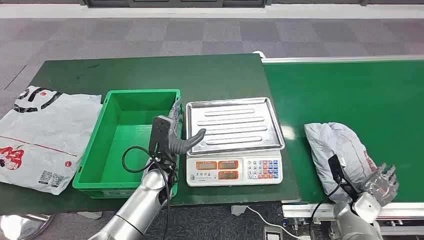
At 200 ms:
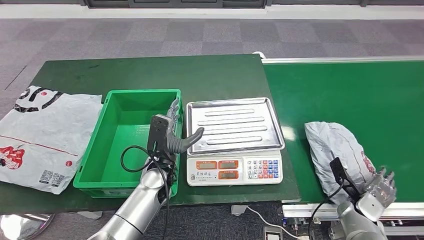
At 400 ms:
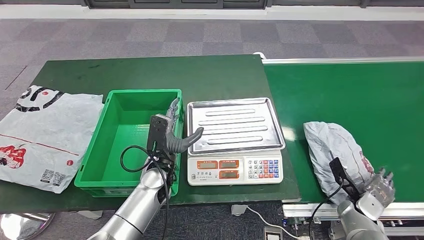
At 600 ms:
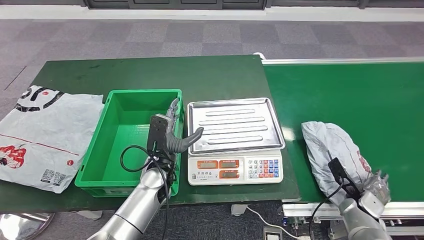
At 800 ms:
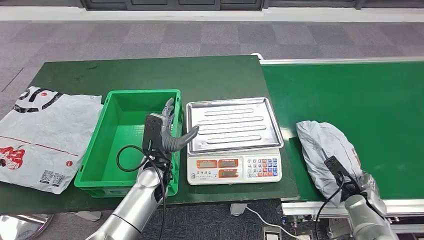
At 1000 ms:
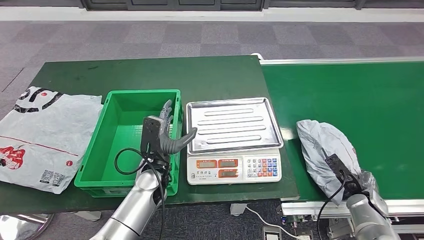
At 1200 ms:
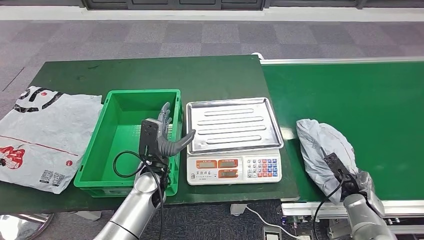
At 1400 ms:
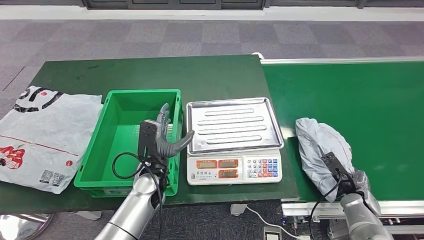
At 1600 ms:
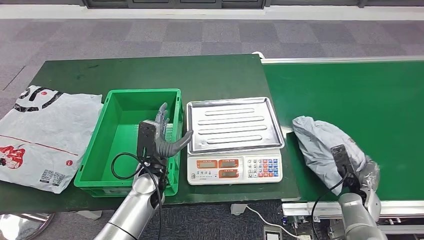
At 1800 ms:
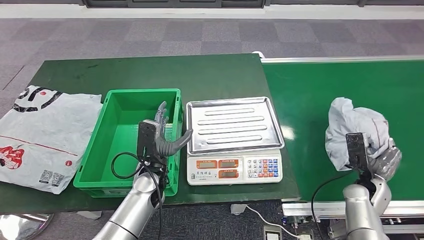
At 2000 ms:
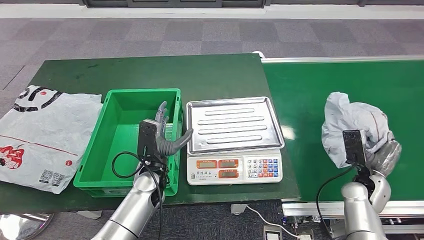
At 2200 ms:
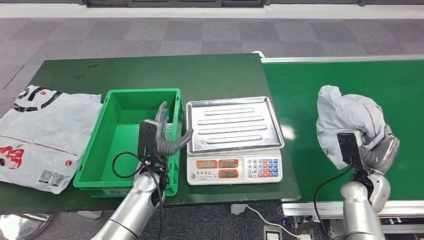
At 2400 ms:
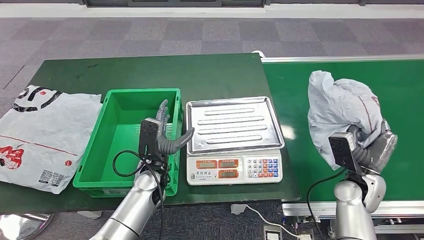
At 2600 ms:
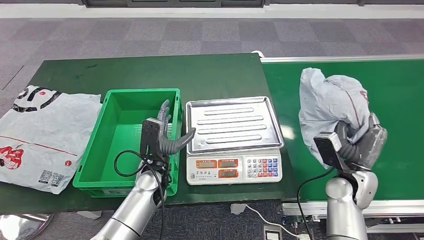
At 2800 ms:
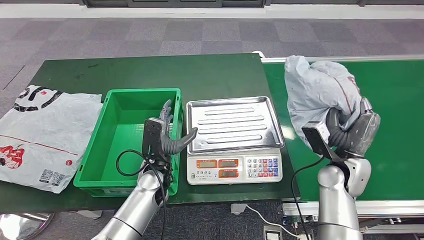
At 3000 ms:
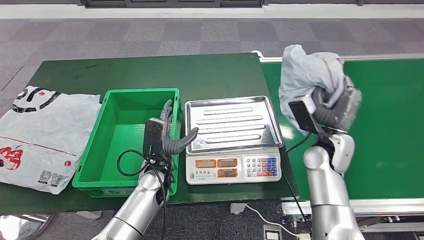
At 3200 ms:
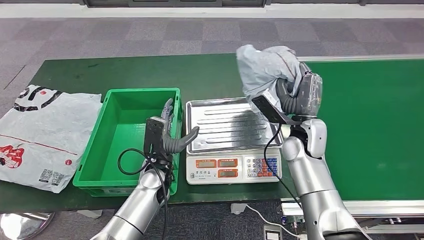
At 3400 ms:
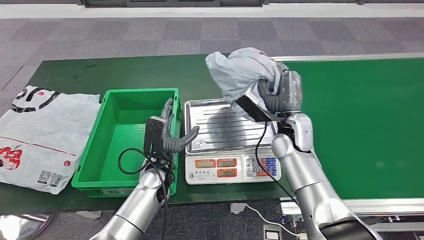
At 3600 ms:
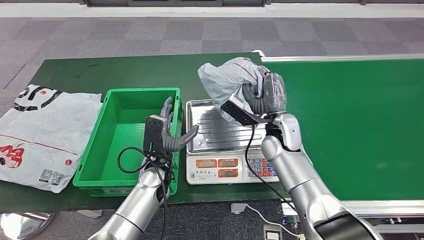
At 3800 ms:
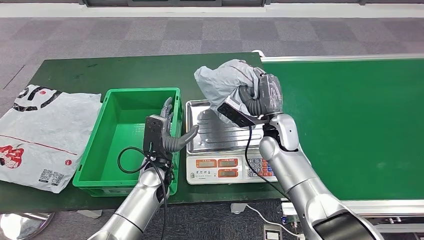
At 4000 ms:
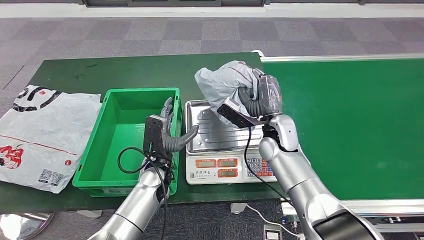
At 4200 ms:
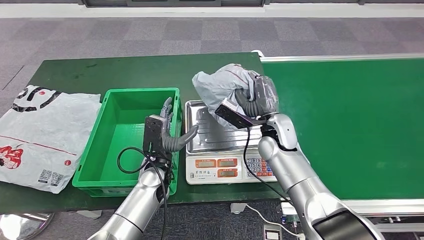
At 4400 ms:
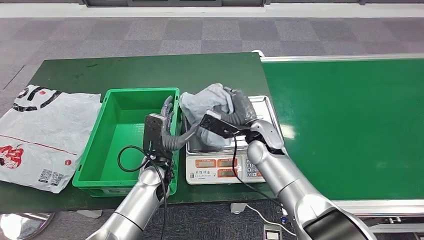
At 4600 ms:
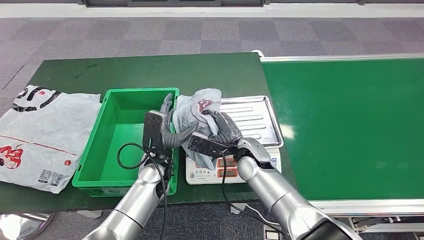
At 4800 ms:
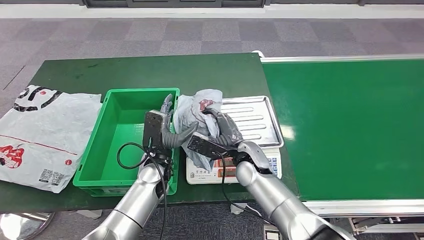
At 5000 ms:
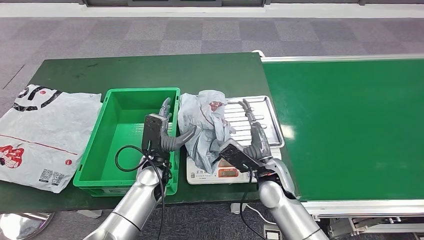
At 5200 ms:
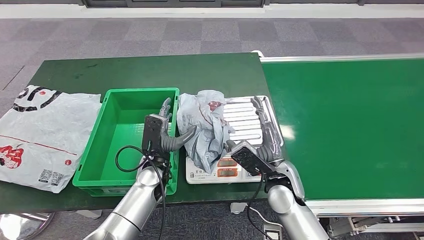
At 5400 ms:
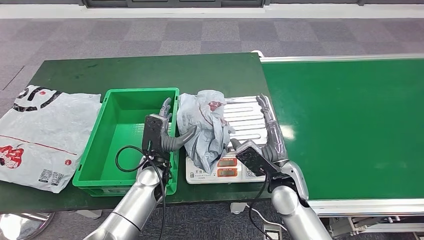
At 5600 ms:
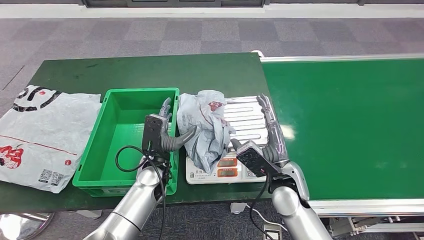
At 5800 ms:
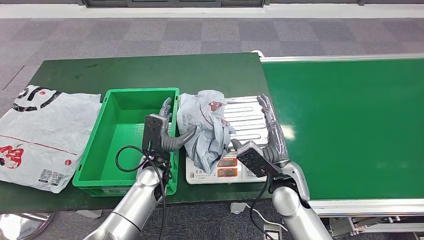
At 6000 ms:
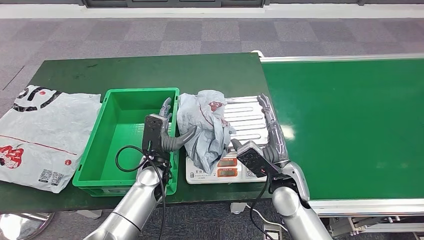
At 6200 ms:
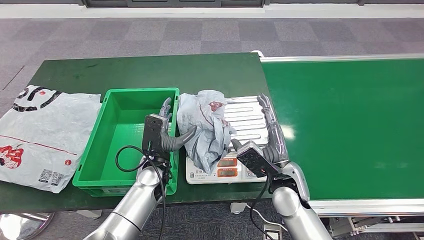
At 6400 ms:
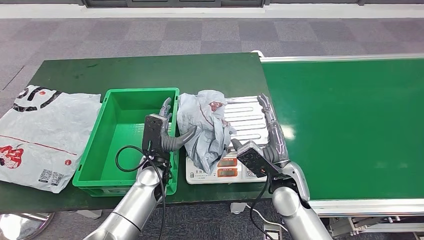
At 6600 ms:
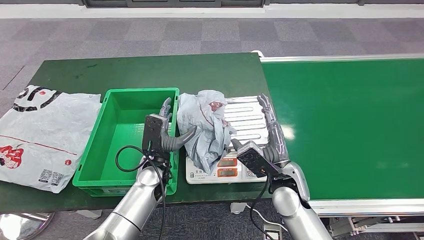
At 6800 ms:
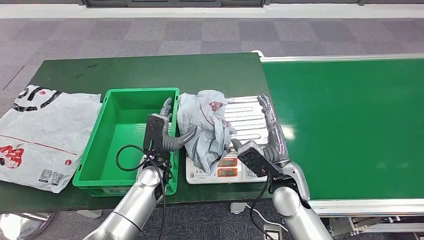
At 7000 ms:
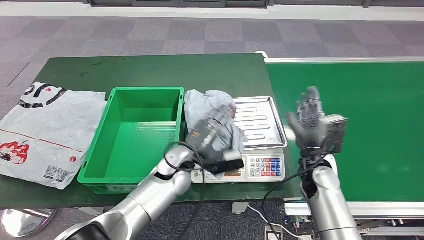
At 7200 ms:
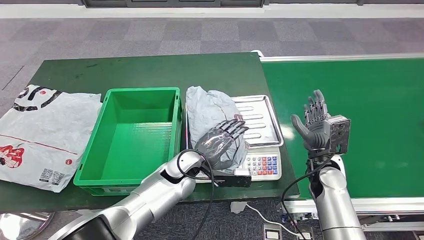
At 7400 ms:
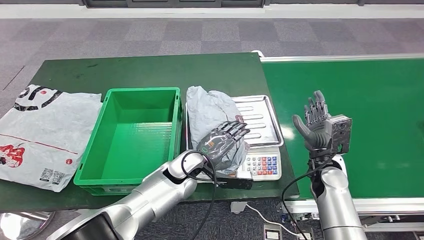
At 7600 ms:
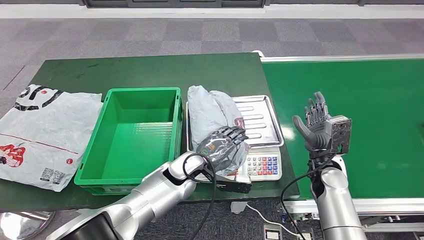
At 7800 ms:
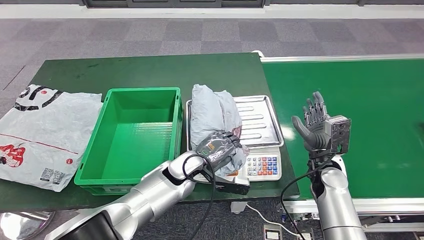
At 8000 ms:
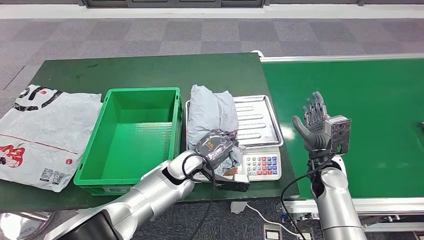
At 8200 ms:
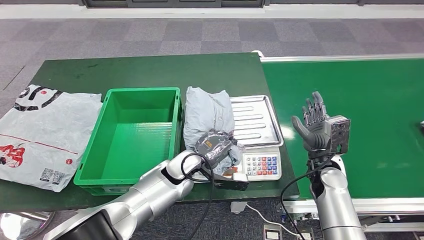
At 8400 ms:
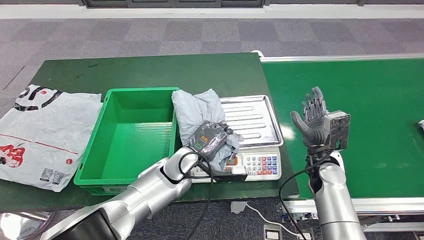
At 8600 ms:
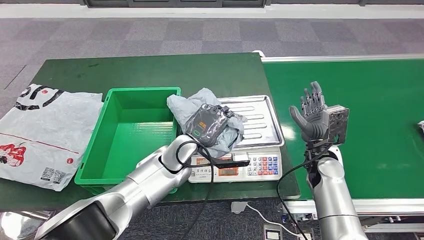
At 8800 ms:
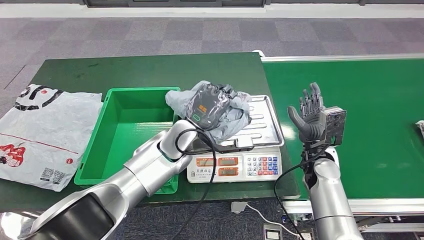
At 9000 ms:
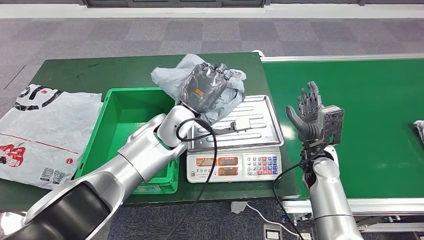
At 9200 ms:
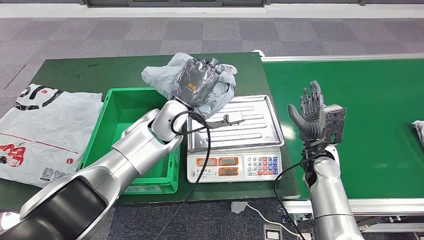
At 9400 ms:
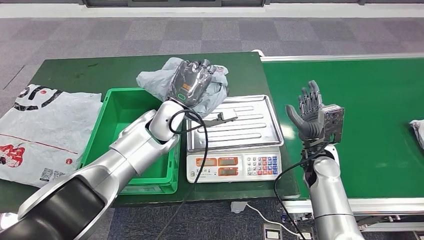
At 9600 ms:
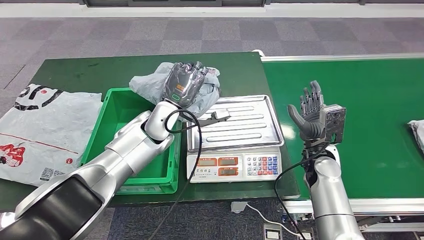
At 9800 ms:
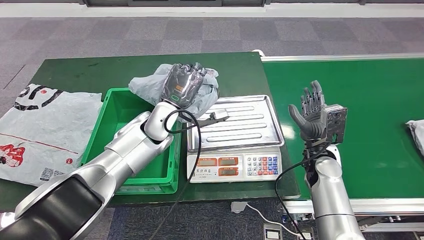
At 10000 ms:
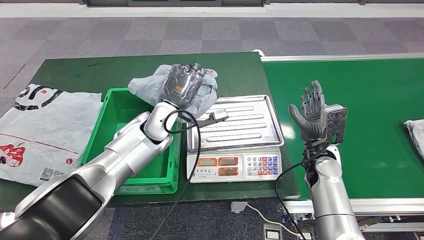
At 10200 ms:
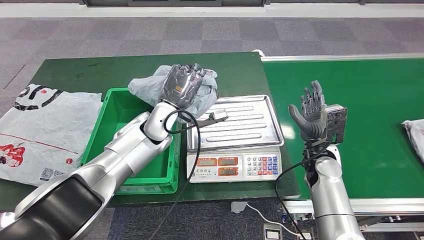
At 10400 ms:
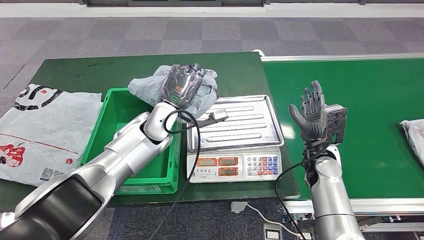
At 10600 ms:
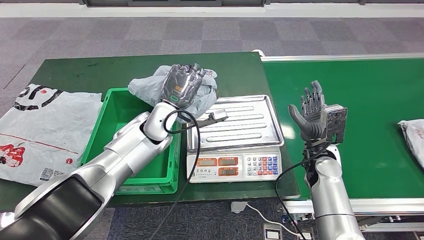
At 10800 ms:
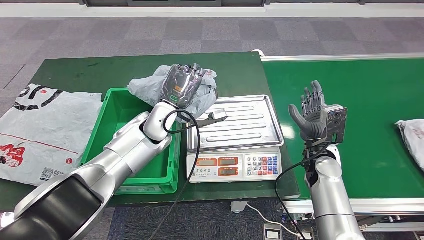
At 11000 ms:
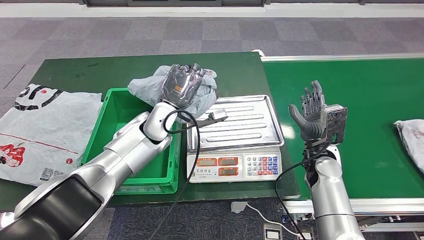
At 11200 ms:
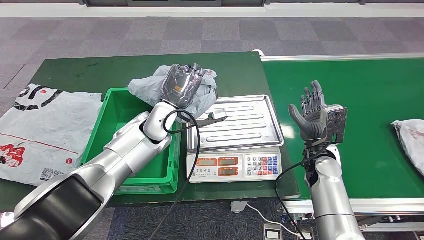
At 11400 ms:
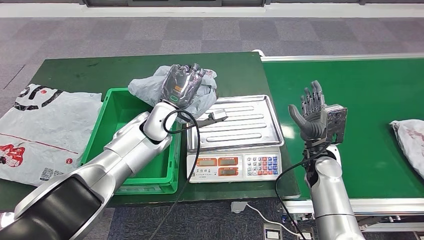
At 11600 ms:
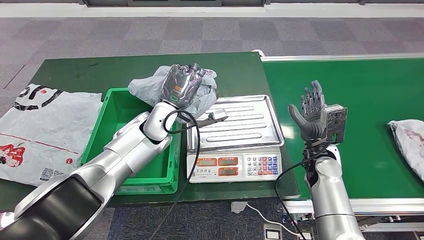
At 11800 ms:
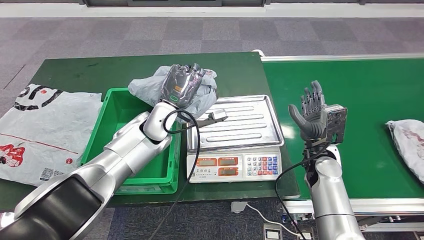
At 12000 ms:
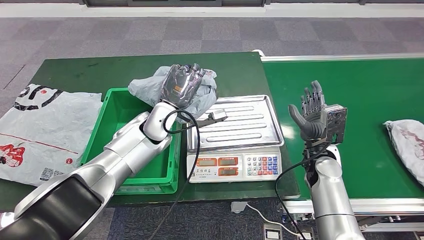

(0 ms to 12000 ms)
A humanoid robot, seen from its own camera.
Step, 0 ms - 1600 ms: Take the parcel off the conveyor belt.
Step, 1800 ms - 5400 ms: Place the parcel onto the inbound machine.
Step, 5600 ms - 9800 ms: Pick up the parcel from the inbound machine.
4400 ms - 6000 ms: The right hand is displaced backward by roughly 10 cm.
9000 ms - 10400 ms: The left hand moves roughly 5 cm.
10400 ms - 12000 ms: Neither hand changes place.

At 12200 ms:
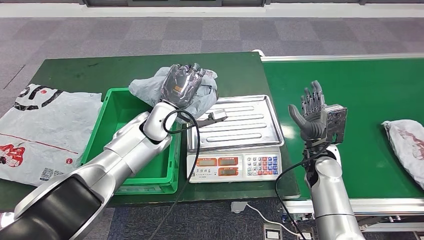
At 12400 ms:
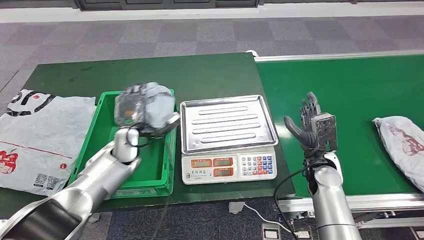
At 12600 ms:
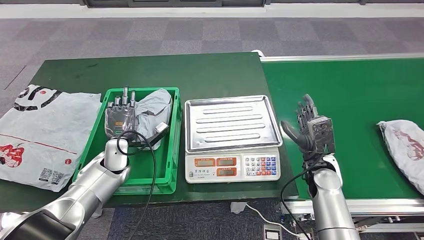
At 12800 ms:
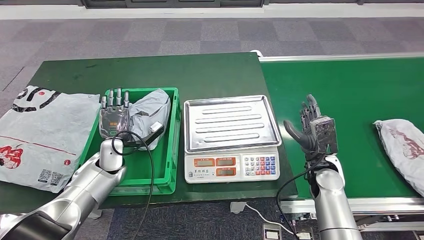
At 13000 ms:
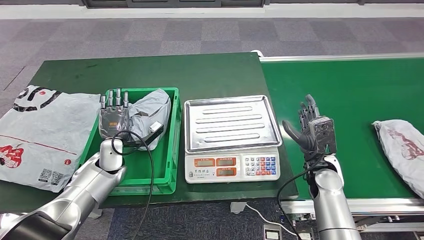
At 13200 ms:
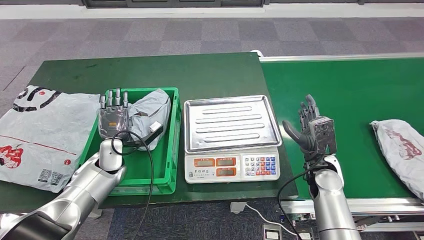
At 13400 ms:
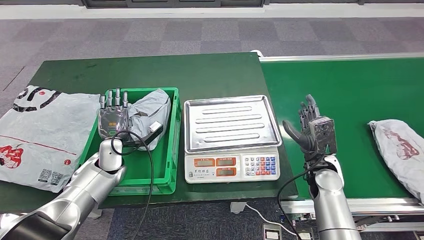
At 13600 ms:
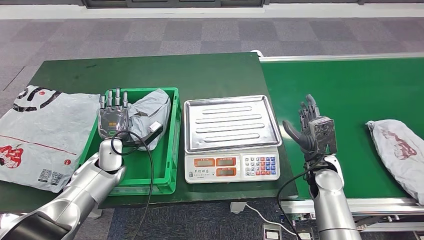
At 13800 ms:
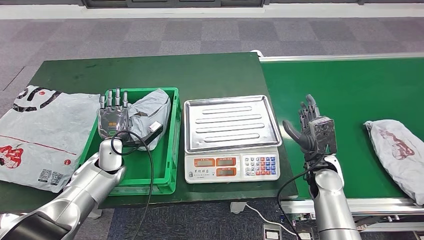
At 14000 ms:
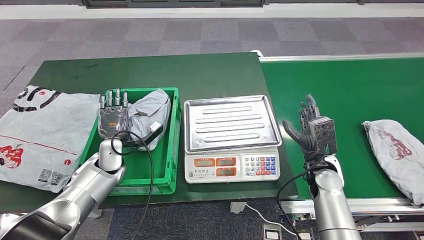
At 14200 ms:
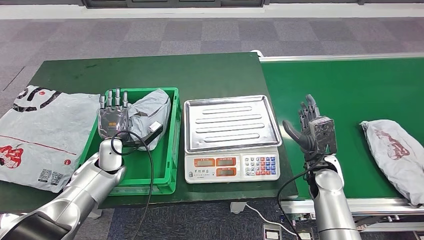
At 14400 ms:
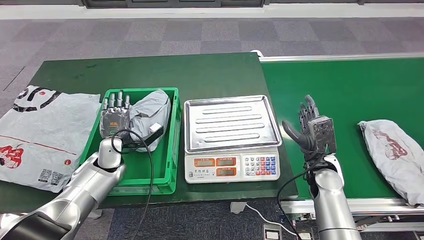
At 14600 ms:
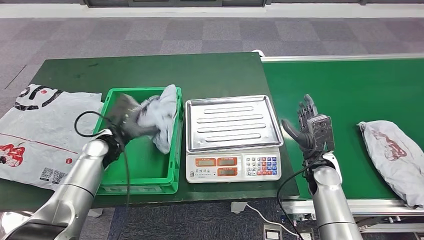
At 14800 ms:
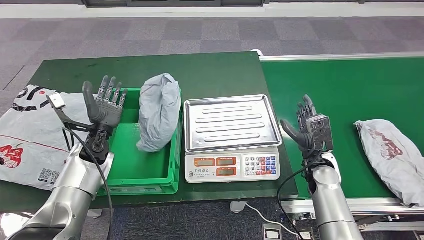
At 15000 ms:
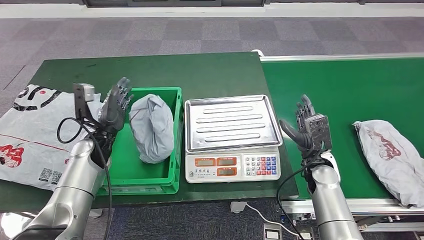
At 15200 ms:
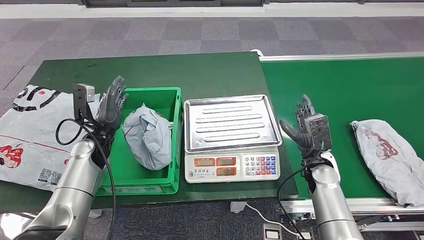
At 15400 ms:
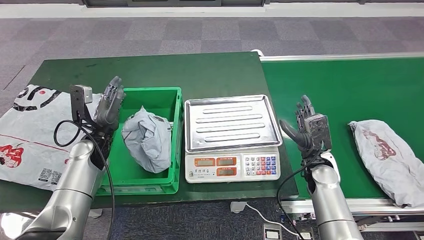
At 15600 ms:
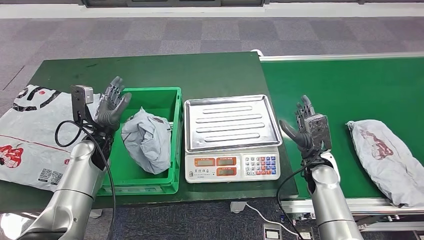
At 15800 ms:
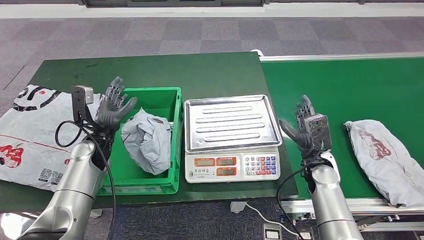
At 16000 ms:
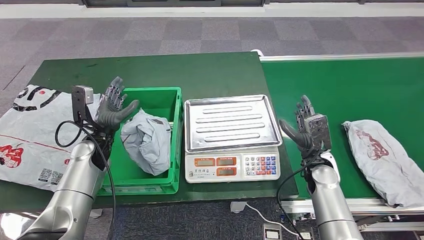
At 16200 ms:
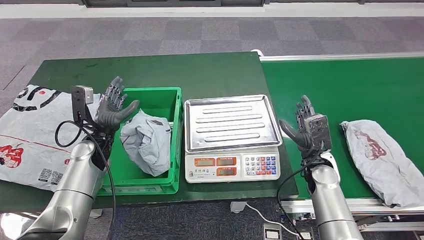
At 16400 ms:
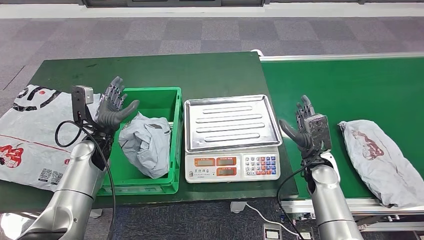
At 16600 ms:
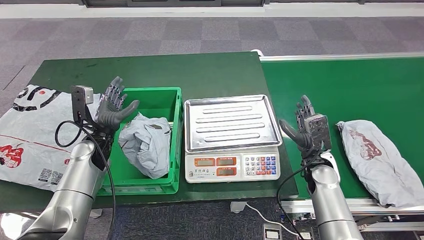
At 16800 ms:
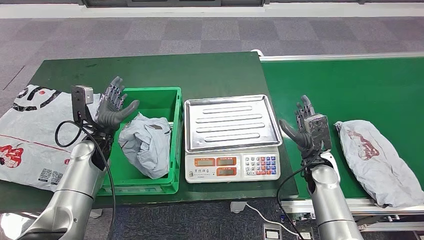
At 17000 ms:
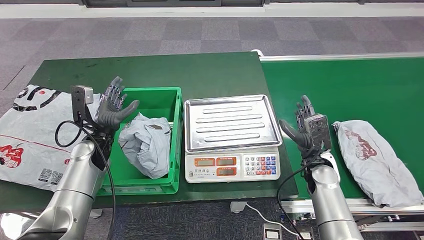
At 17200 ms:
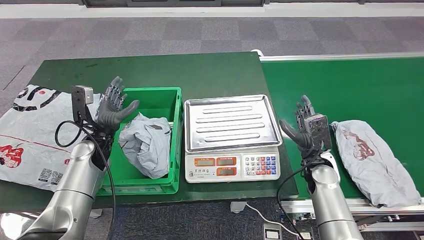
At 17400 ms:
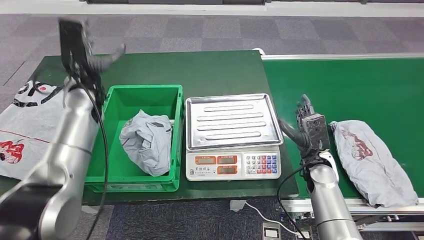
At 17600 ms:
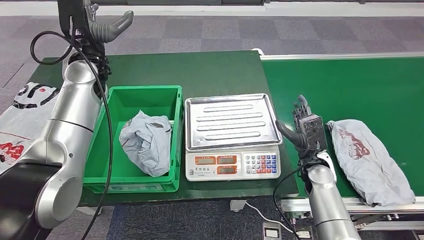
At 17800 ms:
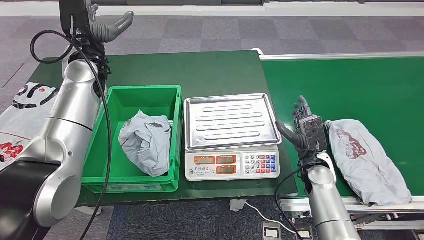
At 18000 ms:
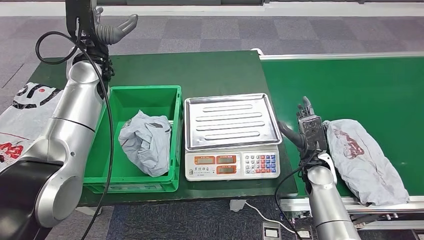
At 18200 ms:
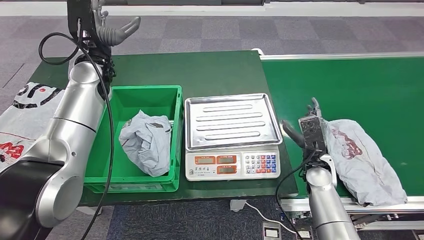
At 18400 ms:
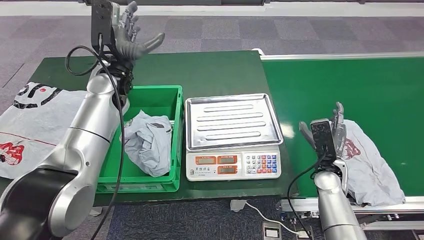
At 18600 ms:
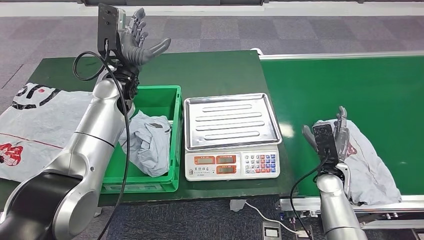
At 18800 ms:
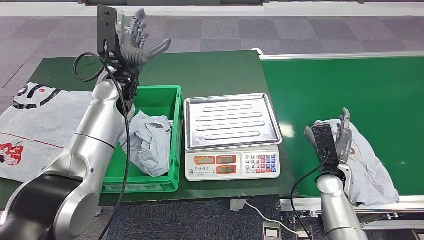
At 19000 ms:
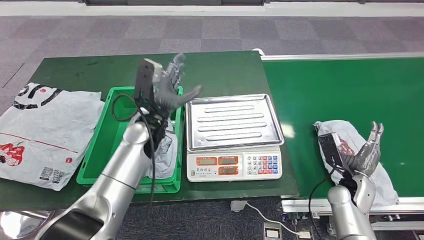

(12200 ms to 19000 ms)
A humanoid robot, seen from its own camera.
Step, 12200 ms - 15000 ms: Put the parcel inside the courier box.
13600 ms - 15000 ms: The left hand ends up approximately 5 cm from where it was.
15000 ms - 16200 ms: The hands stay close to where they were, moving slightly.
